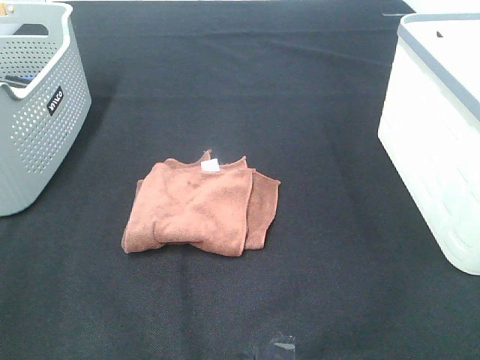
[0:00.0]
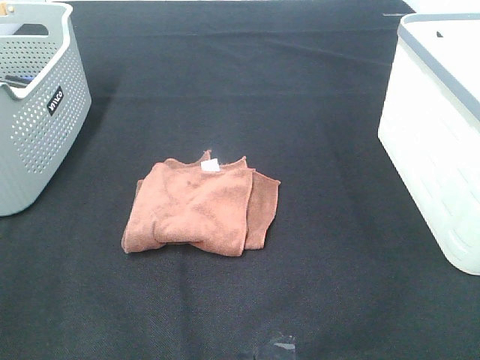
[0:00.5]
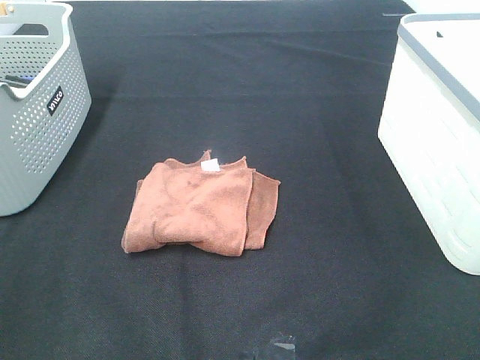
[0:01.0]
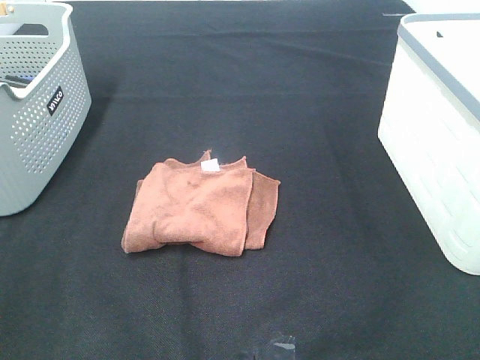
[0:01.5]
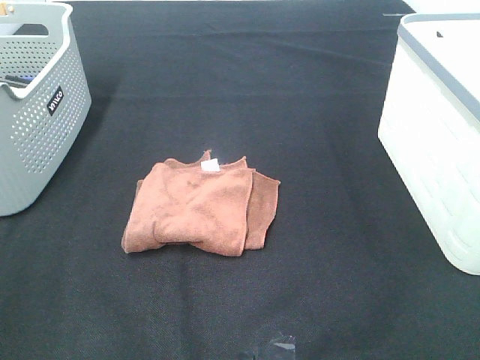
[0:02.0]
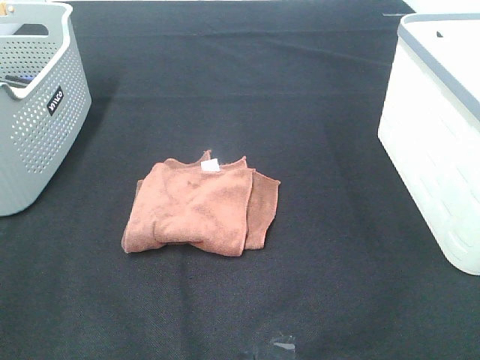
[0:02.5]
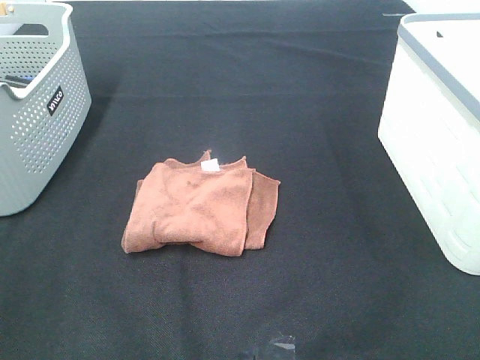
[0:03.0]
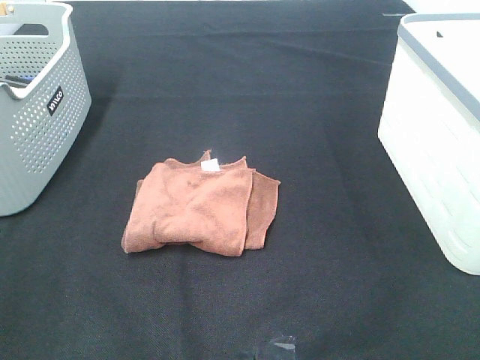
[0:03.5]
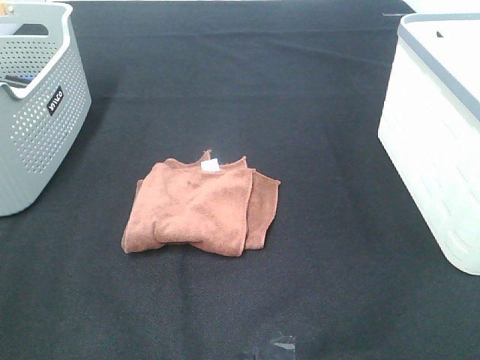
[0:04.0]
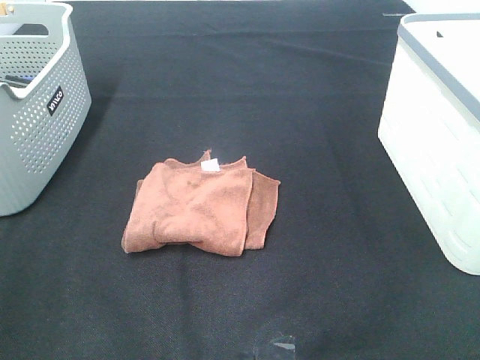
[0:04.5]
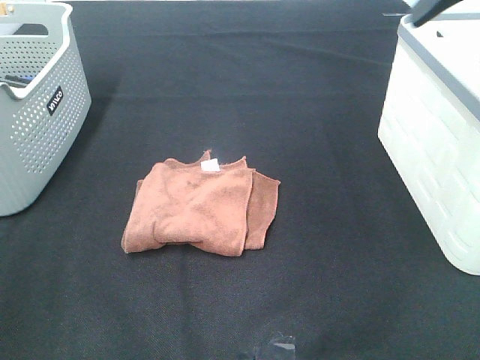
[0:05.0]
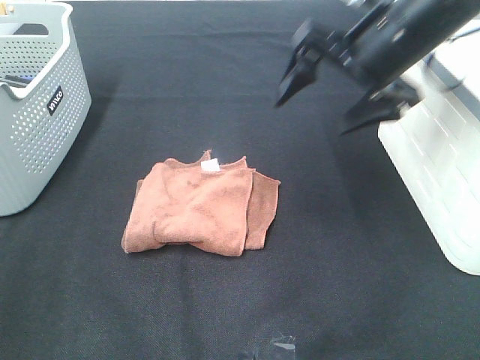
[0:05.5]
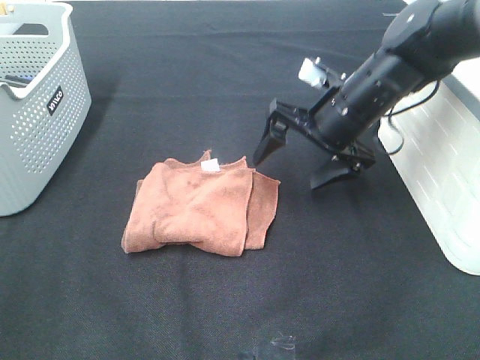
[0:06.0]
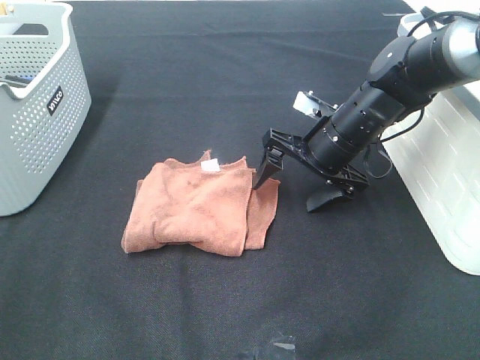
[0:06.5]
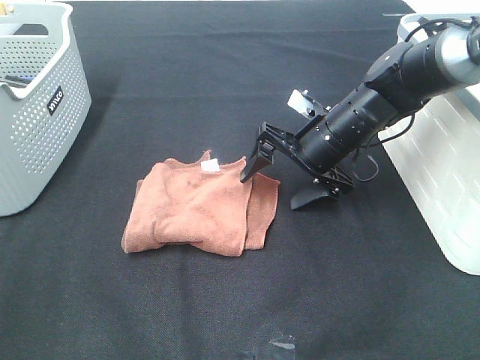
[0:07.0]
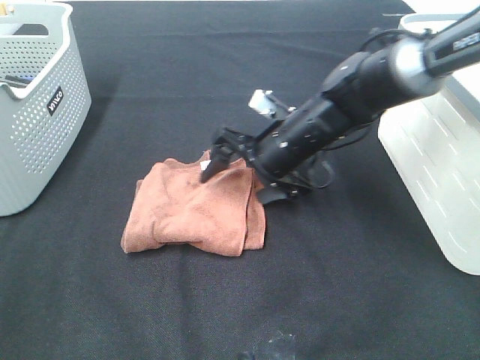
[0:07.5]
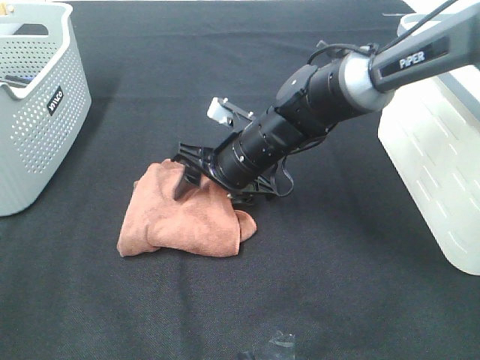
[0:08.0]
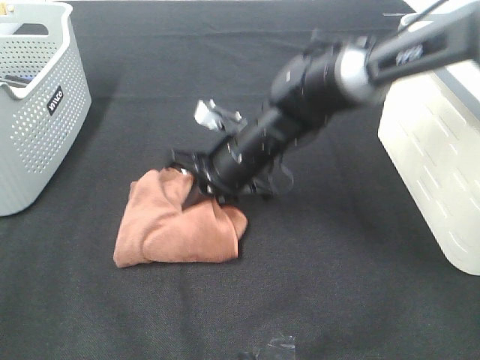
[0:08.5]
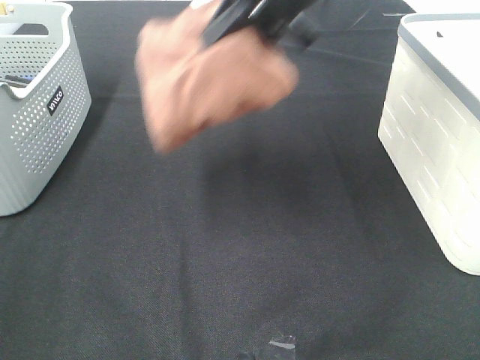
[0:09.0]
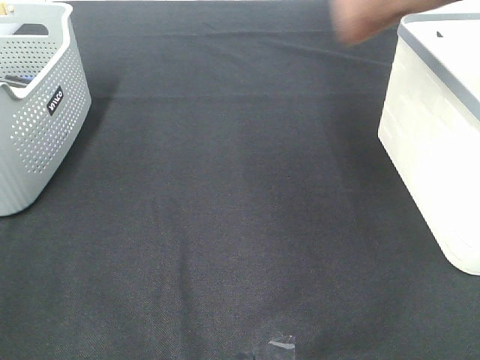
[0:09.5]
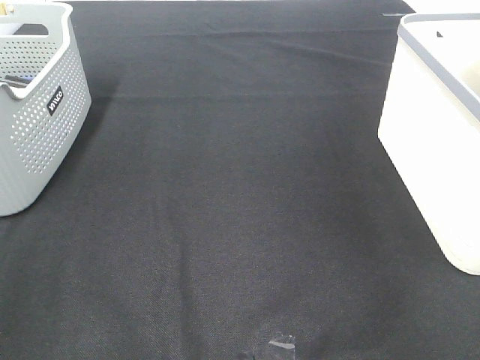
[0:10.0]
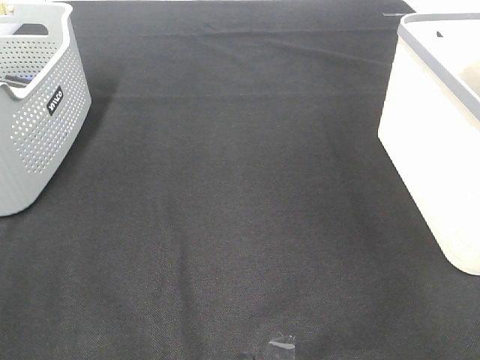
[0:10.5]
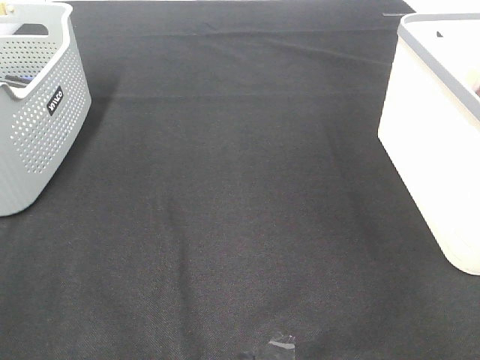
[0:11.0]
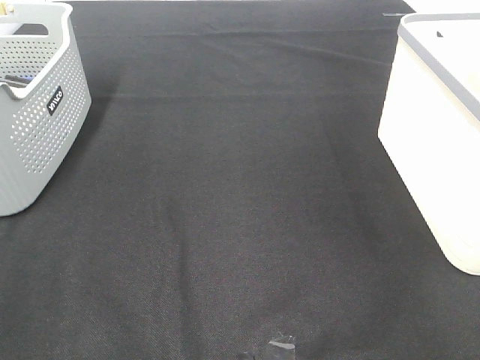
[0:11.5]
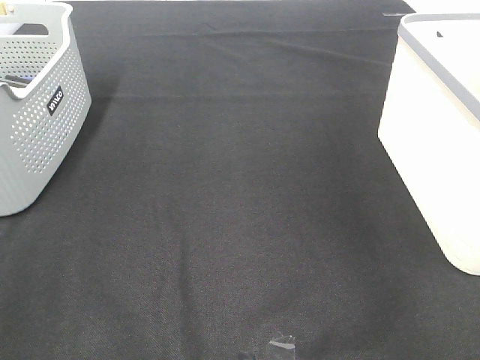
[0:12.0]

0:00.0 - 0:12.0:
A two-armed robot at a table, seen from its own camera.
Step, 0:00.0 - 0:08.0: Right hand: grab the folded brown towel.
Step, 0:08.5 - 0:11.0: Right hand: place the brown towel in right basket.
0:00.0 - 0:02.0: Both grippers stay about where they are.
0:04.0 - 0:06.0: The right gripper travels forward, downward and to the left by approximately 40 cm.
0:06.0 - 0:08.0: The right gripper is displaced to the left and downward by some 15 cm, and closes up.
0:08.0 - 0:10.0: The right gripper shifts some 50 cm to the right and upward, and closes up.

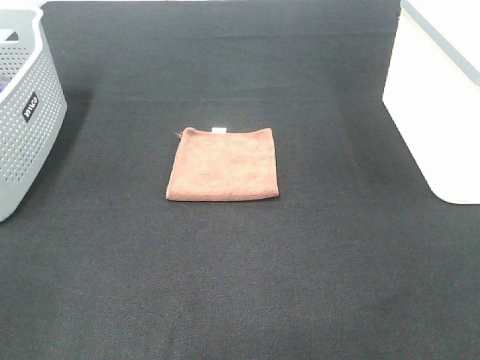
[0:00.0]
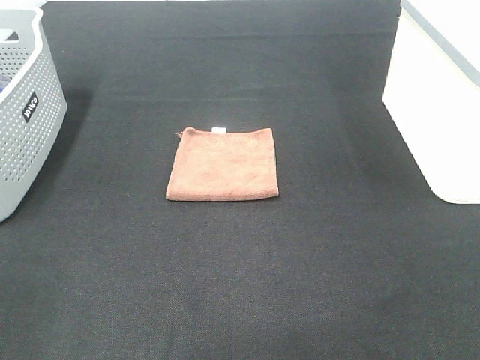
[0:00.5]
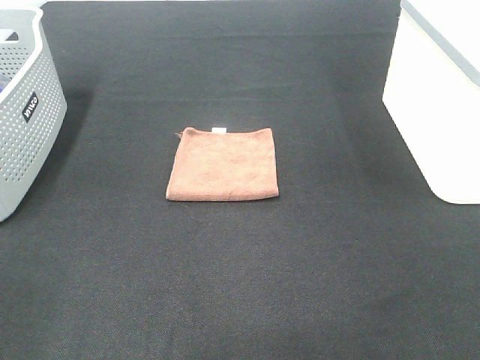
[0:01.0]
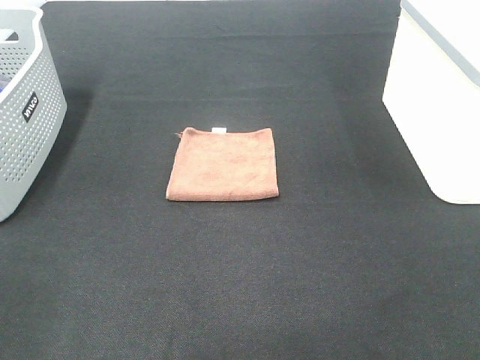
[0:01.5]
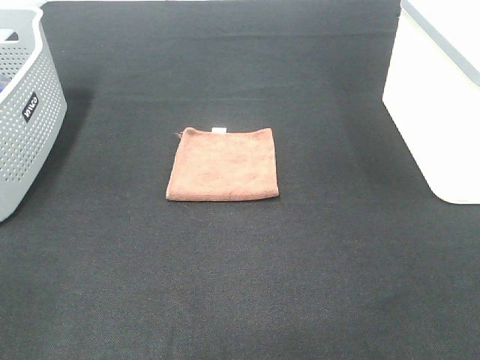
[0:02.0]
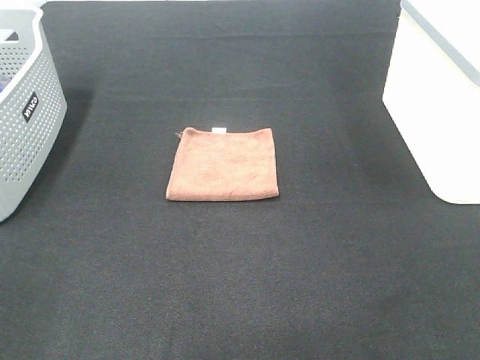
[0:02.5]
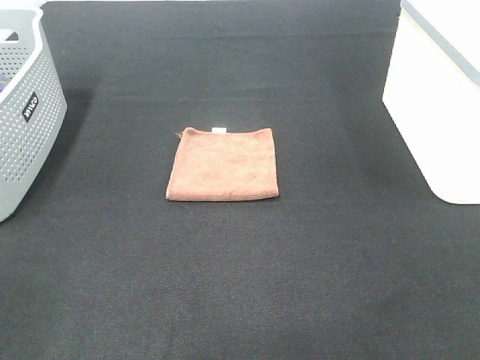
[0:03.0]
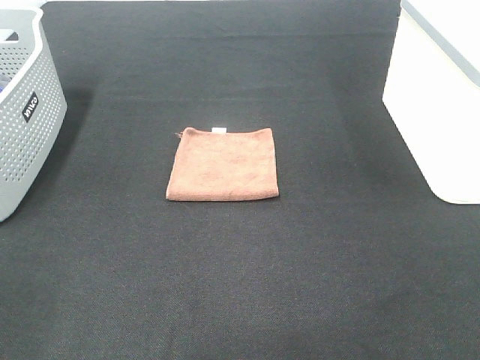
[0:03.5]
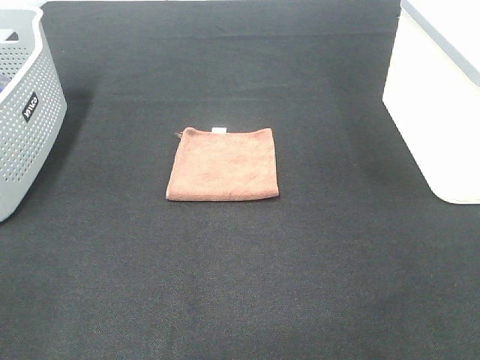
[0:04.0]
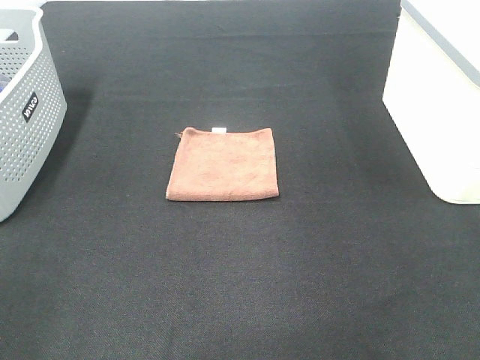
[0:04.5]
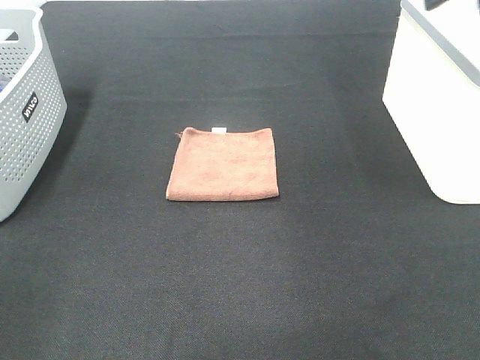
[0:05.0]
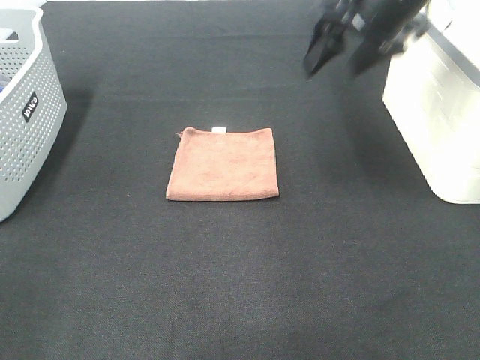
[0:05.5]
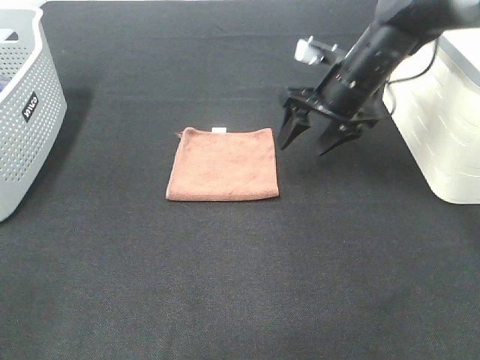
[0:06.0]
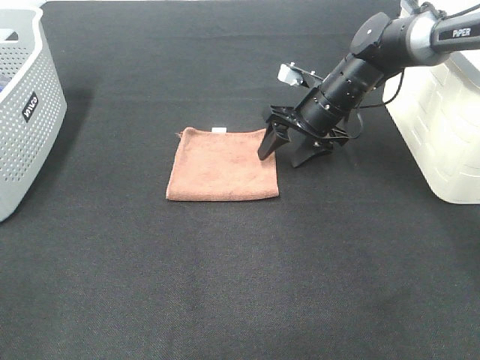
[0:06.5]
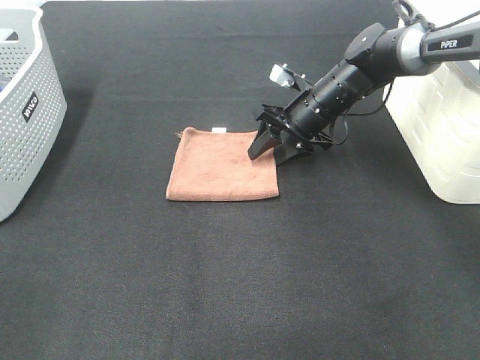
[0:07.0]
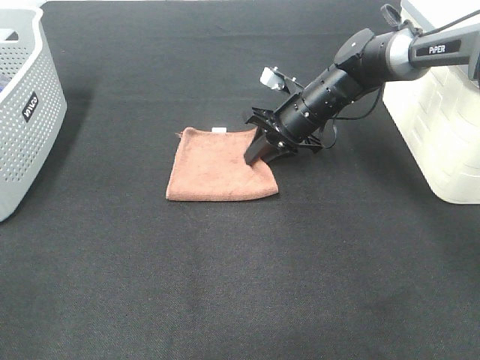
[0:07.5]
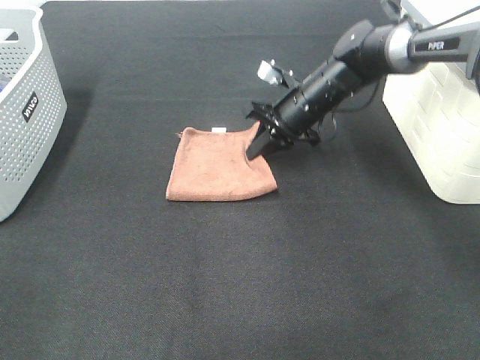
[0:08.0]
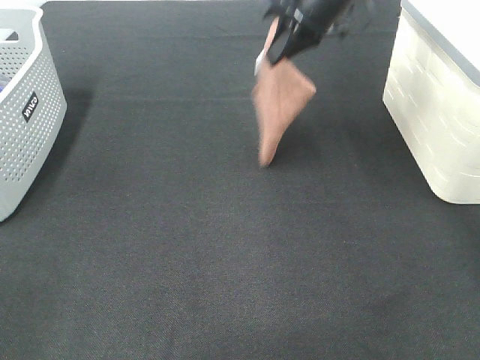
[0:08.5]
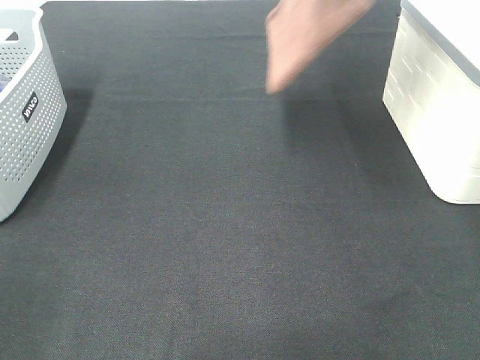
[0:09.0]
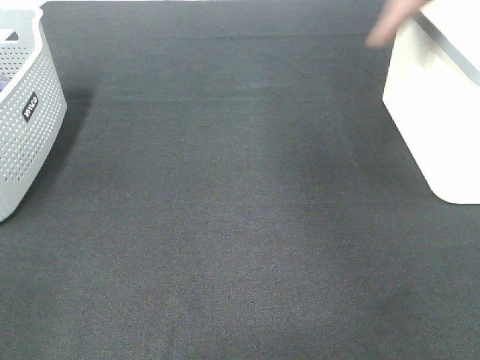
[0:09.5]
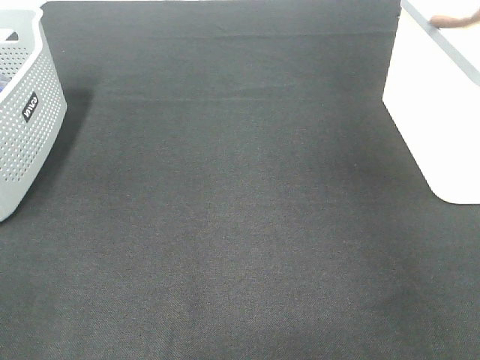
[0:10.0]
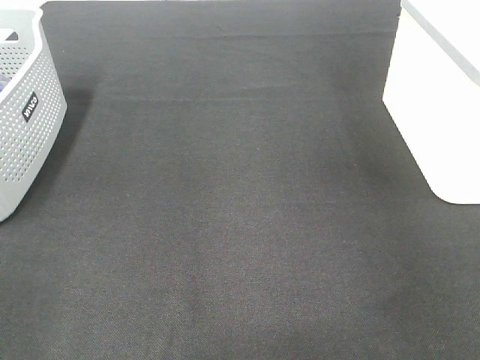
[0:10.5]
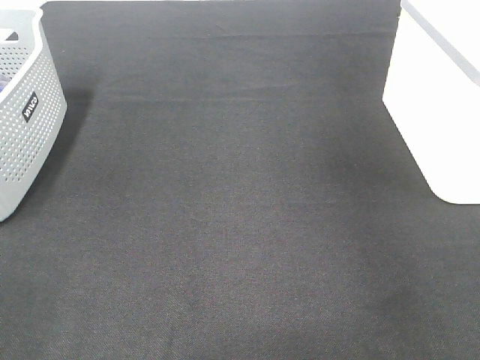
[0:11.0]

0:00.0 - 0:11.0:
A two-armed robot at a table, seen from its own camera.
Step, 0:00.0 - 0:07.5: Right hand: grab the folded brown towel.
Step, 0:08.0 - 0:10.5: Right hand: place the brown towel in right basket.
0:00.0 - 0:03.5: Neither gripper changes place.
0:03.5 - 0:05.5: The right gripper goes roughly 40 cm forward.
0:05.5 - 0:07.5: The right gripper goes about 20 cm downward, and closes its fingers.
0:07.5 - 0:09.0: The right gripper is displaced upward by about 30 cm.
0:09.0 - 0:11.0: The right gripper heads to the right, covering about 20 cm, and opens.

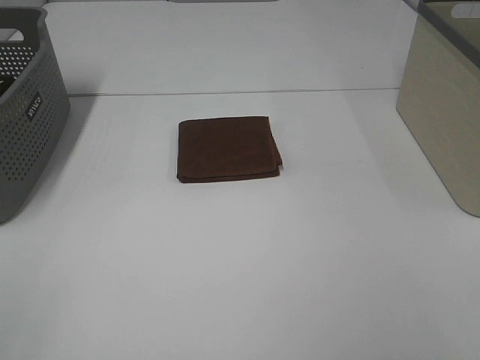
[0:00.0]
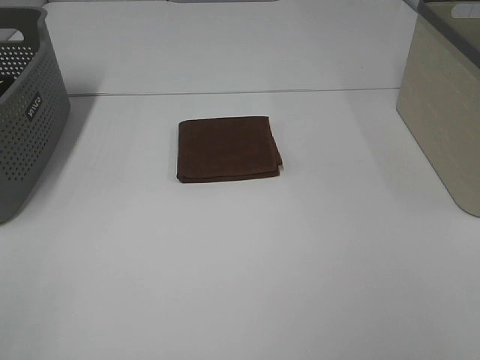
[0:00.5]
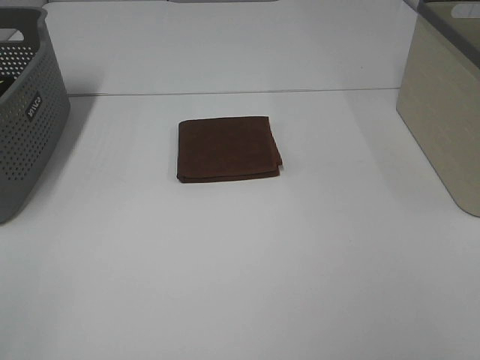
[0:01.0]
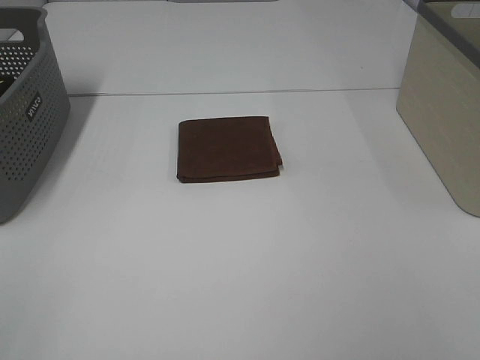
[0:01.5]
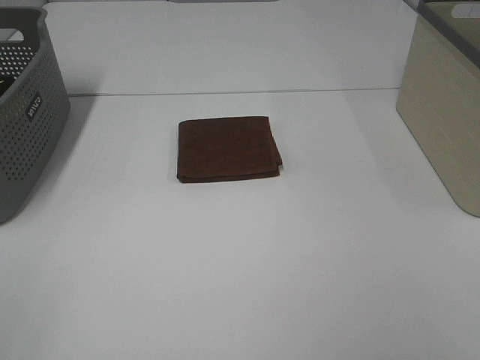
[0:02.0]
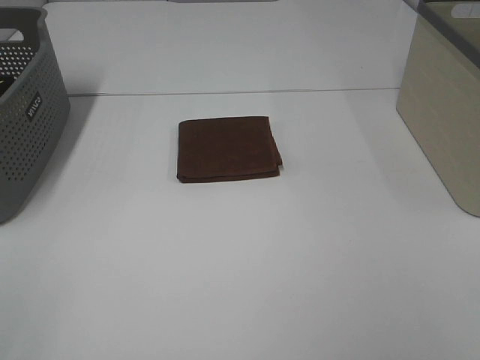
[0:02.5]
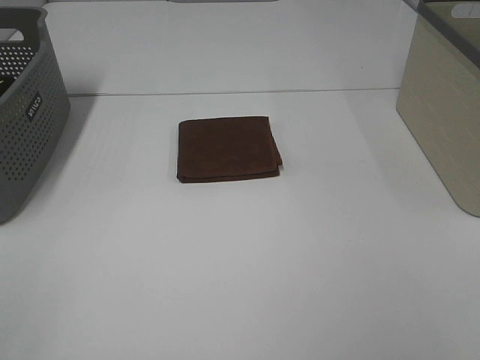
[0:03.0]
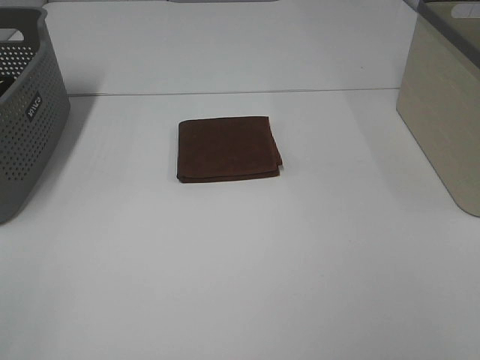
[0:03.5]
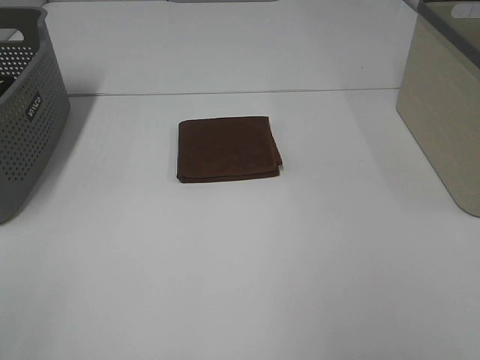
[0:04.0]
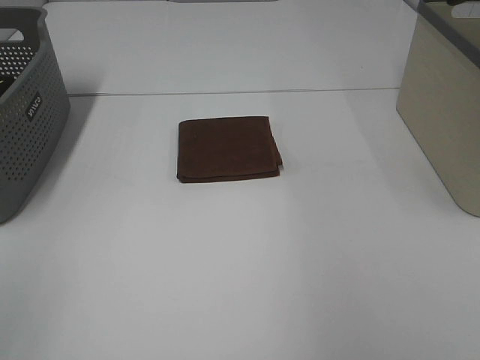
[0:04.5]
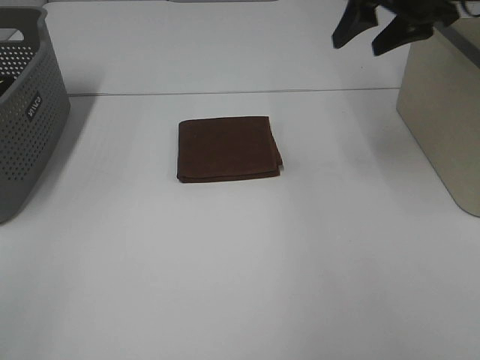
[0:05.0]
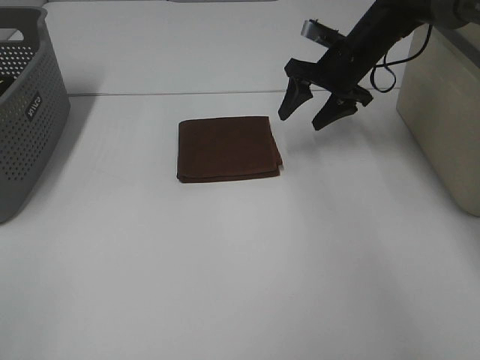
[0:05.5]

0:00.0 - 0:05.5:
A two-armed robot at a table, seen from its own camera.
0:00.0 - 0:03.5: Neither gripper changes place.
0:03.5 - 0:05.5: The right gripper goes some 50 cm forward.
